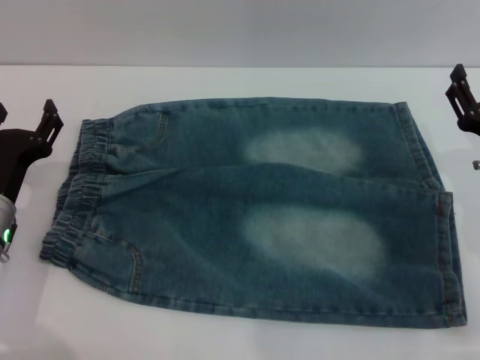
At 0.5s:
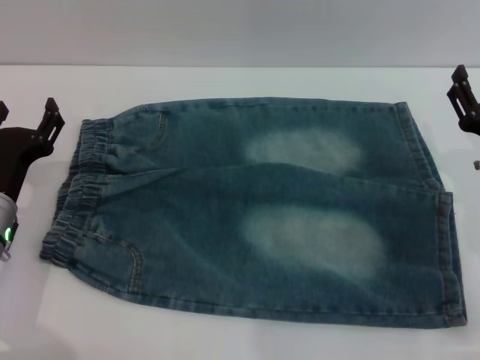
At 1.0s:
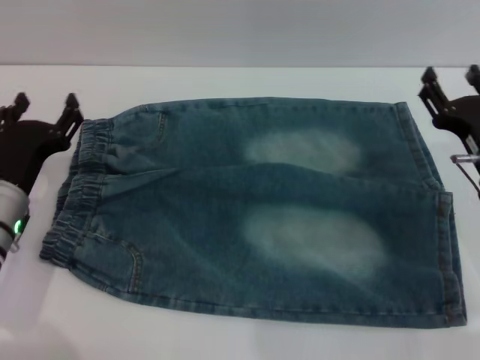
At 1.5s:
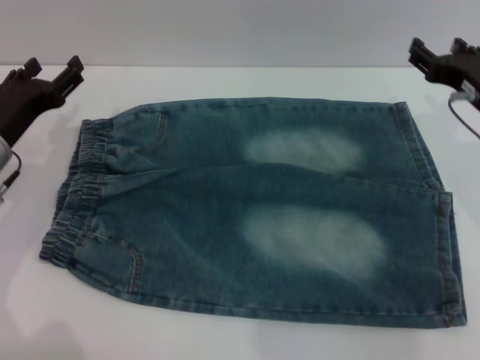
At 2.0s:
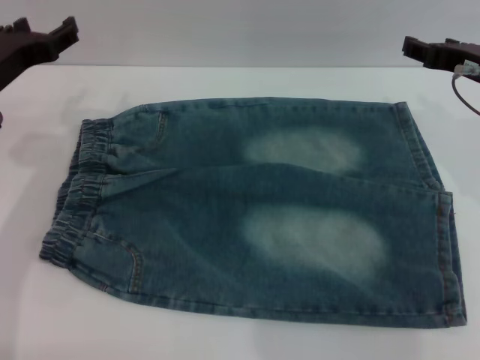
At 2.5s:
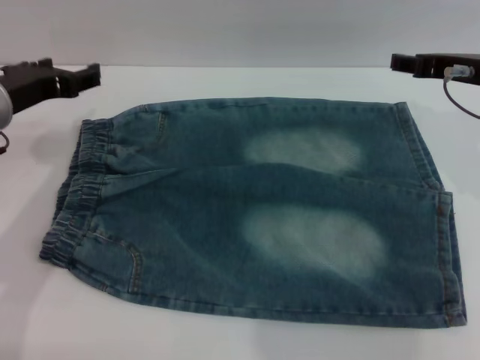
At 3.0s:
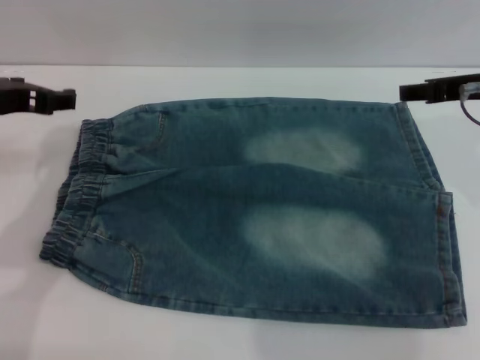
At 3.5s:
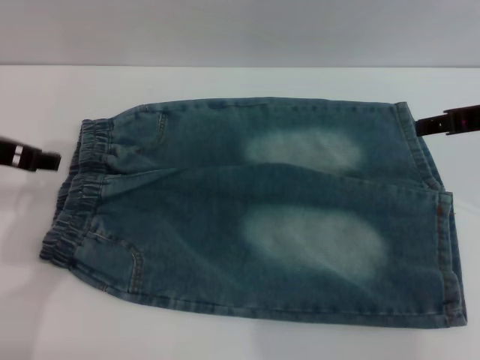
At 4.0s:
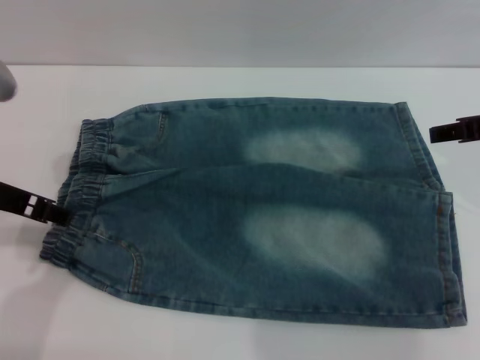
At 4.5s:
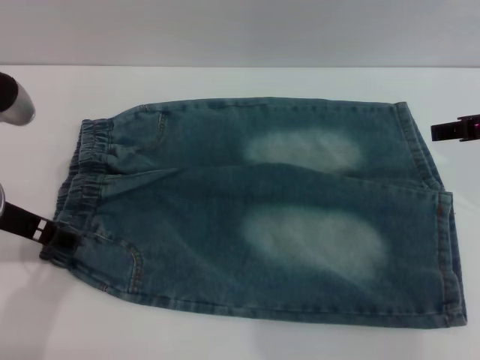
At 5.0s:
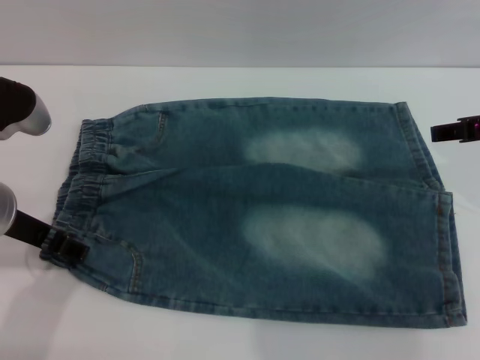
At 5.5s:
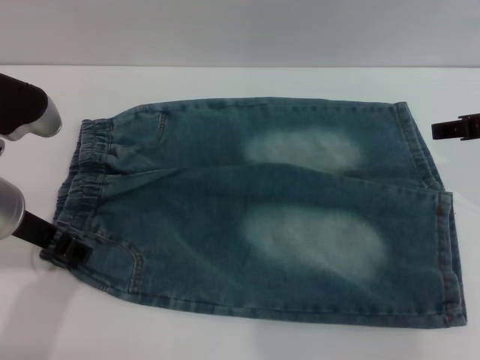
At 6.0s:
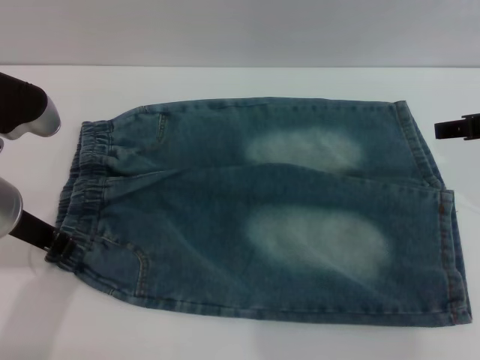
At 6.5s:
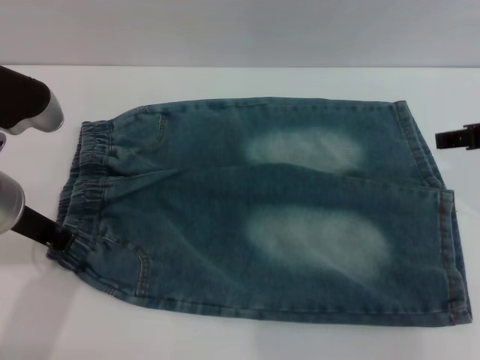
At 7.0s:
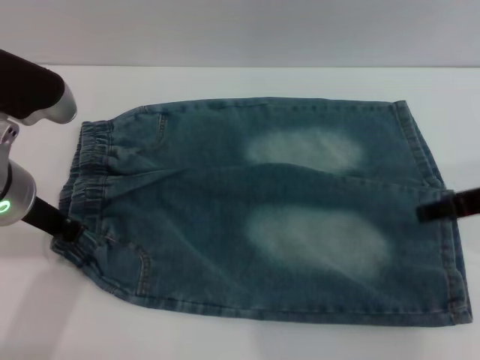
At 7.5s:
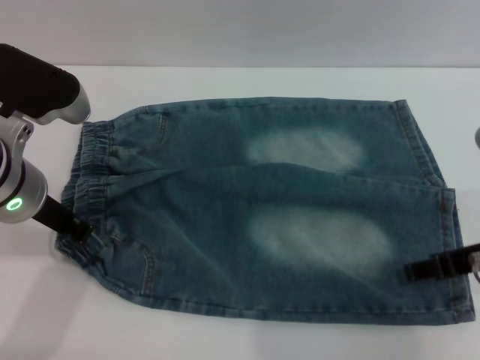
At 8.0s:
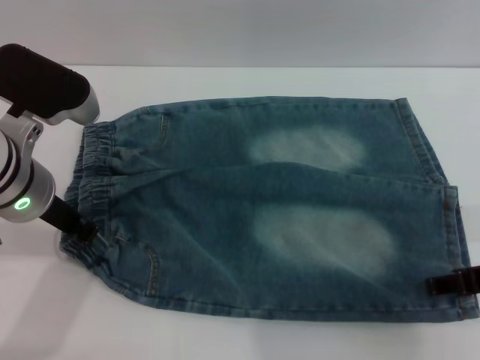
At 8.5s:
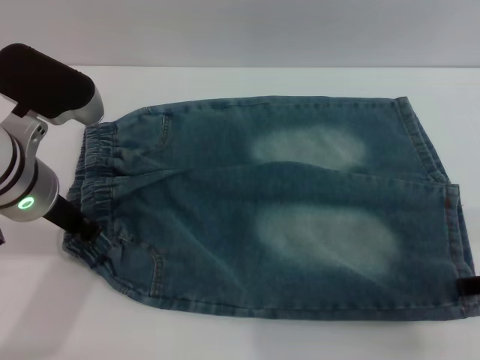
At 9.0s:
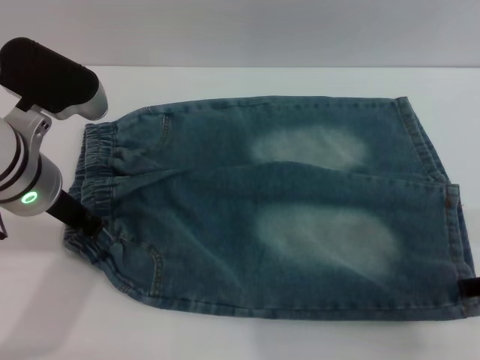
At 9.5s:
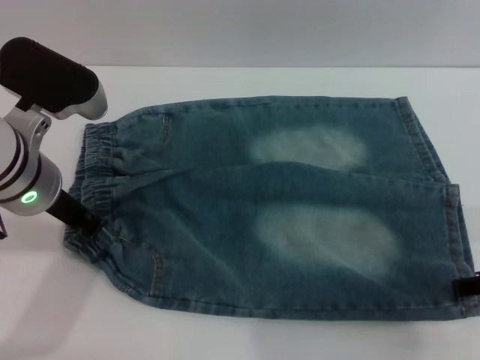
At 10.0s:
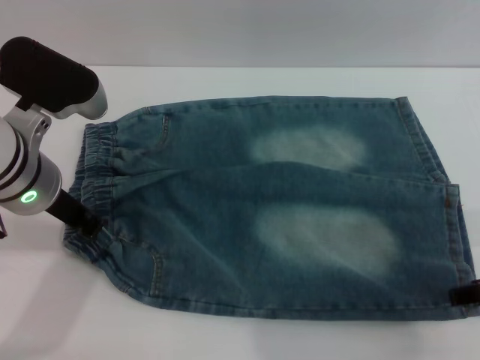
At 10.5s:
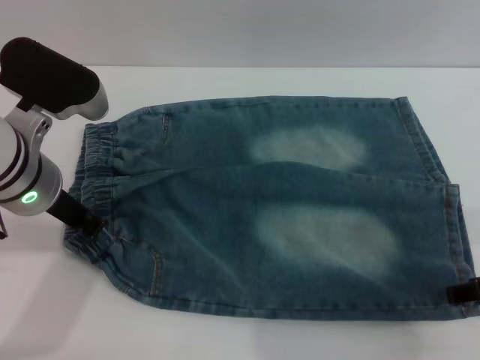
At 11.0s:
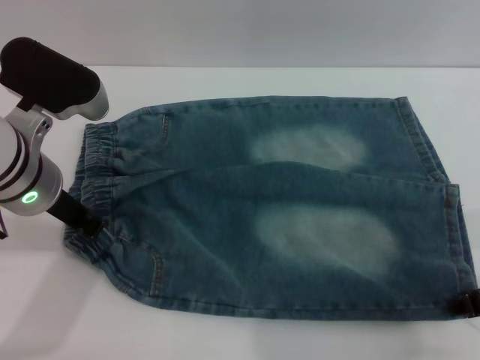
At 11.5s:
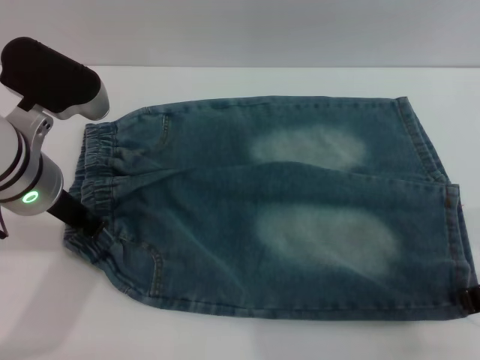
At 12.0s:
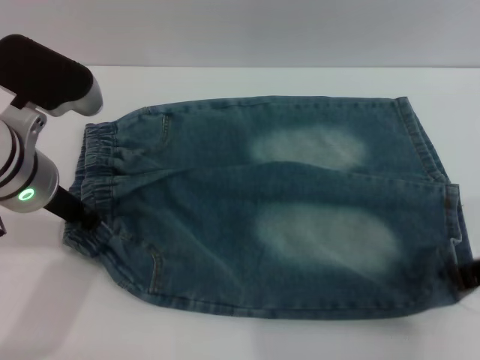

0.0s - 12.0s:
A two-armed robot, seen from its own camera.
0.0s - 2.0s: Both grippers move upward and forward, roughly 15 cm.
2.0s - 4.0s: The right gripper shifts by about 5 cm. The left gripper shifts some 5 cm backward.
4.0s - 6.0s: The left gripper closes up.
6.0s - 8.0s: The left gripper closes; the right gripper shifts approximately 10 cm backward.
8.0s - 10.0s: The grippers make only small movements.
10.0s - 12.0s: The right gripper closes.

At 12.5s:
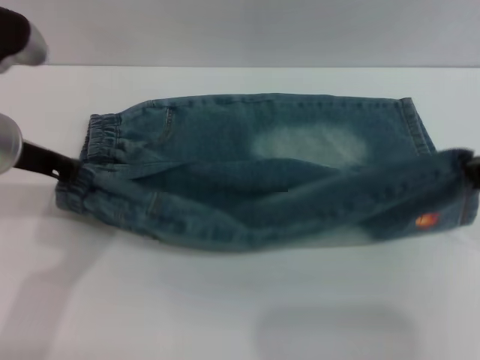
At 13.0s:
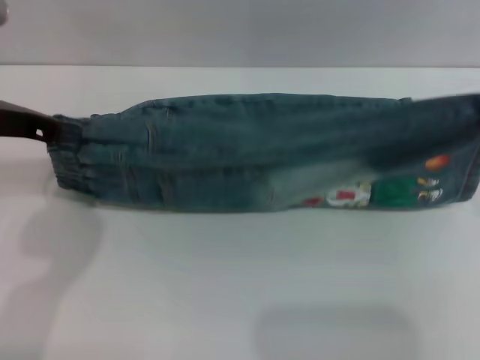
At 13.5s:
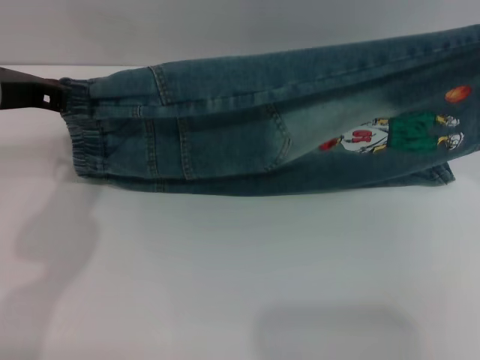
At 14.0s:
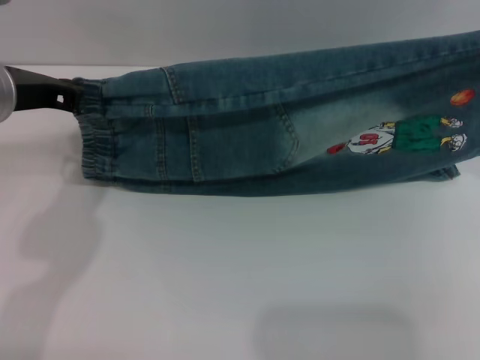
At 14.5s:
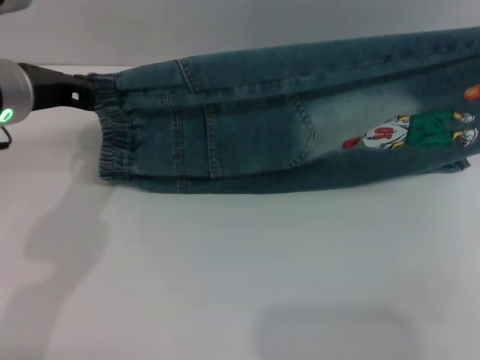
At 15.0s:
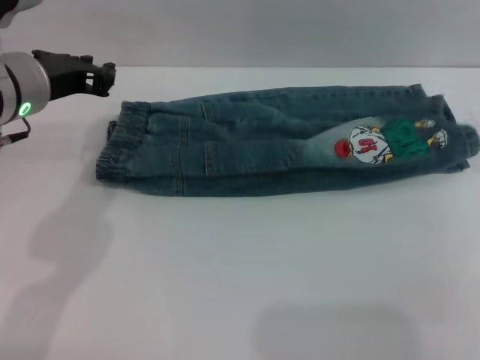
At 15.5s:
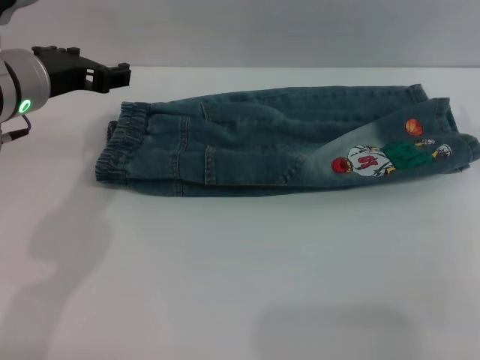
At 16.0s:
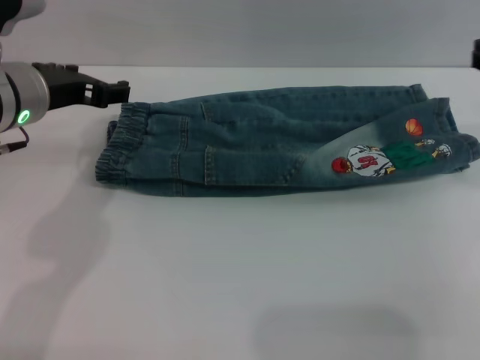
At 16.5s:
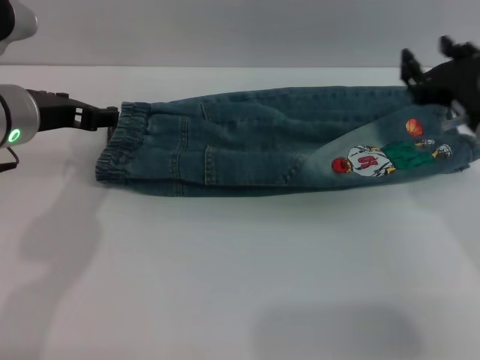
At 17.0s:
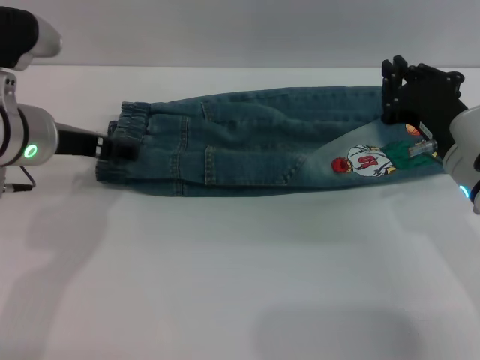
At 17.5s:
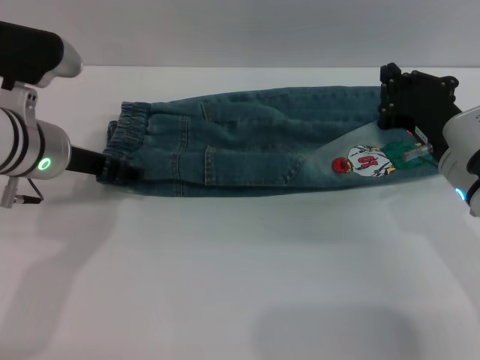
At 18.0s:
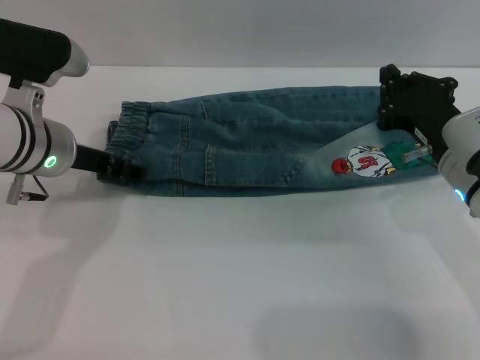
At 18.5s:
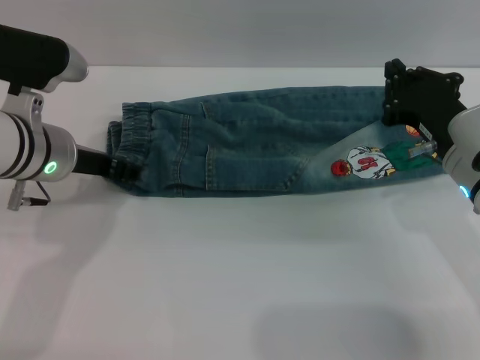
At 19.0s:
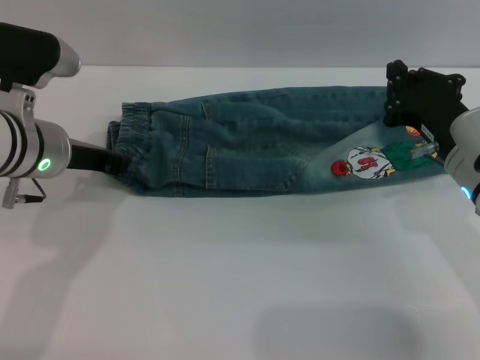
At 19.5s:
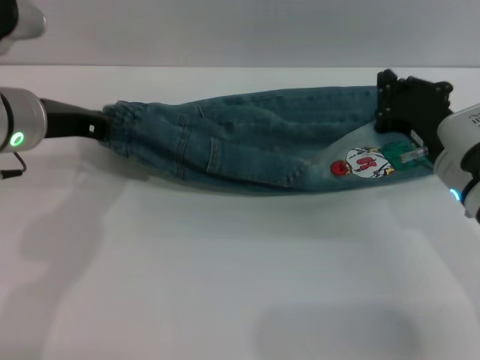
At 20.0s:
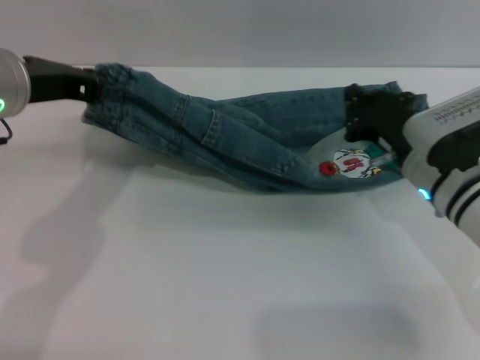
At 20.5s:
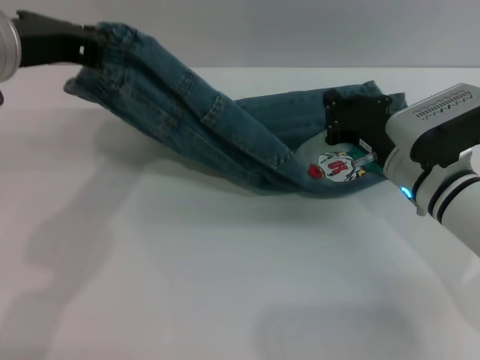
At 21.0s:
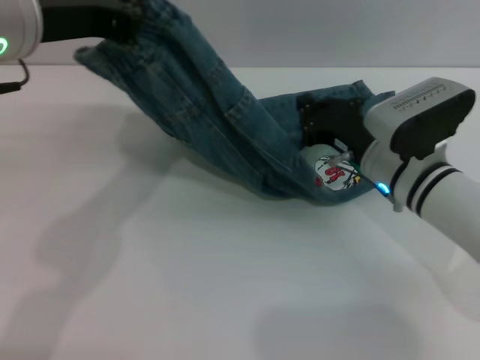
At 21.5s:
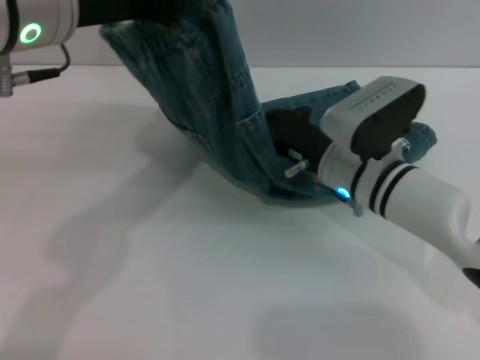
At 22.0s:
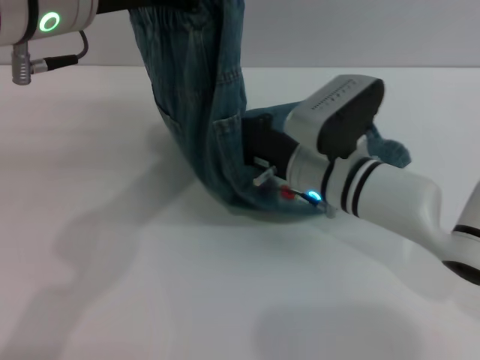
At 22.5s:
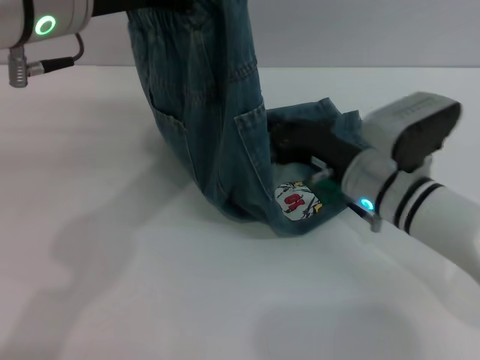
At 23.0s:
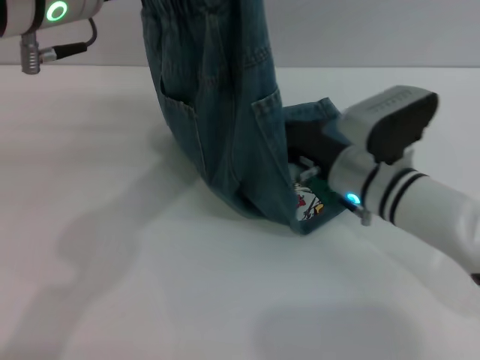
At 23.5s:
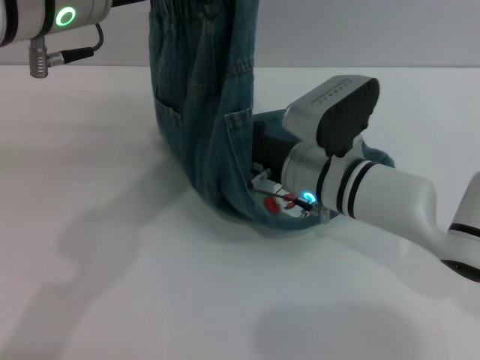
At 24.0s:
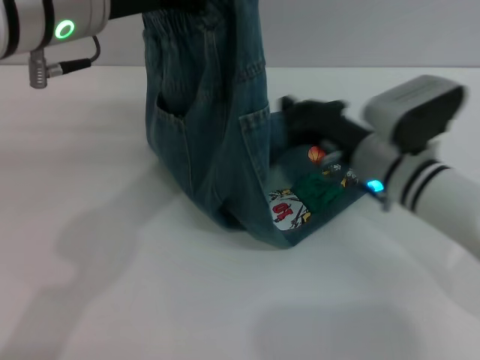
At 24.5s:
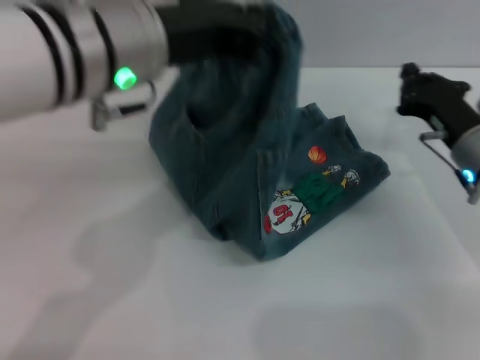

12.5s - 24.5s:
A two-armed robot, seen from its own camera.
Step, 12.5s - 15.5s: Fold the bottom of the pants upward with both grippers.
12.5s - 14.5s: The right gripper shifts roughly 5 cm forward and to the right.
14.5s - 16.5s: The left gripper opens its fingers. Meanwhile the right gripper is displaced downward and to the left by approximately 10 cm, and opens up.
16.5s - 18.5s: The right gripper closes its fingers.
18.5s - 20.5s: The right gripper shifts by about 5 cm. Meanwhile the left gripper shifts approximately 15 cm upward, and closes up.
20.5s - 22.5s: The left gripper shifts about 5 cm to the right.
22.5s - 24.5s: The right gripper is displaced to the right by roughly 10 cm.

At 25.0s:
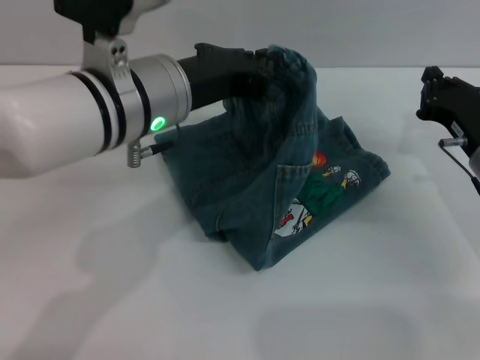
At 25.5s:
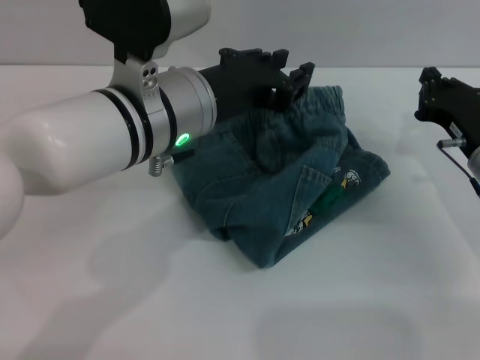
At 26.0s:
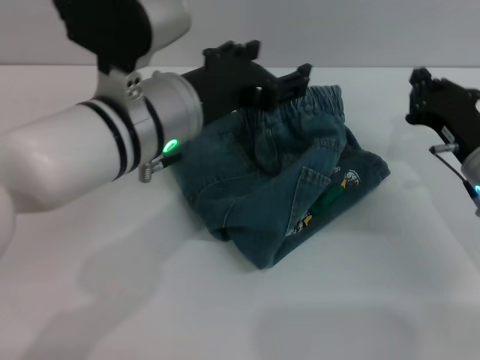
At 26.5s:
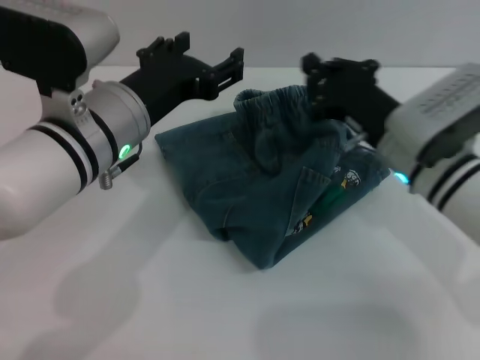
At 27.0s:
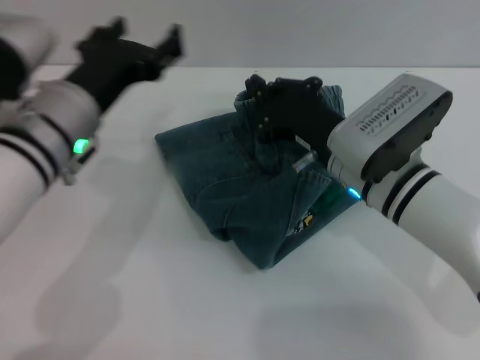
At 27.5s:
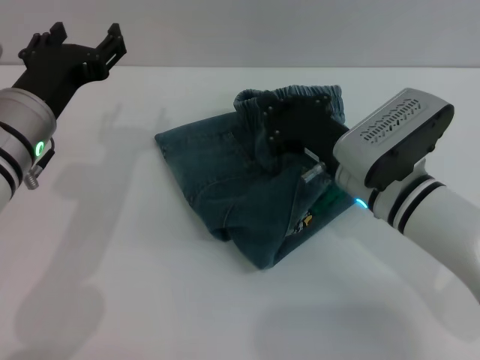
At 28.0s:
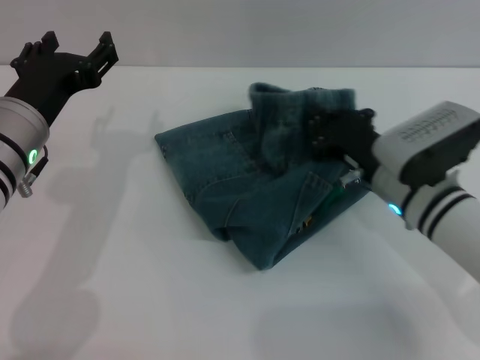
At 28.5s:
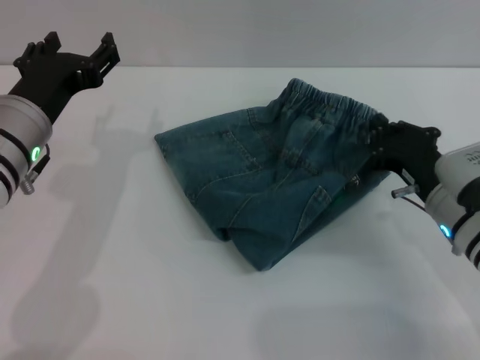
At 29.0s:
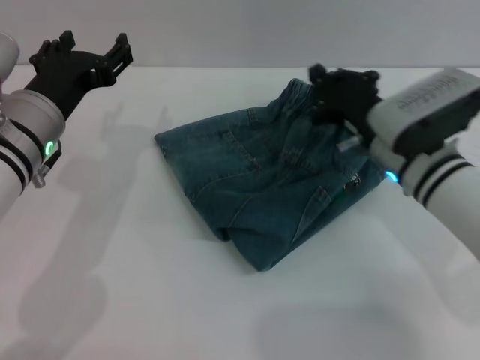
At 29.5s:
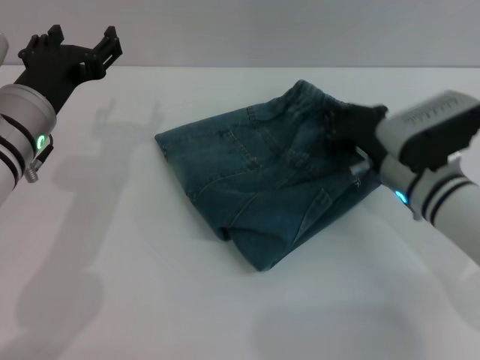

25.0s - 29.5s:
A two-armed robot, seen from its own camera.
25.0s - 27.0s: The right gripper travels to the left by about 15 cm. Meanwhile the left gripper shifts roughly 10 cm to the left and downward, and opens.
27.0s - 29.5s: The right gripper goes some 5 cm to the right.
